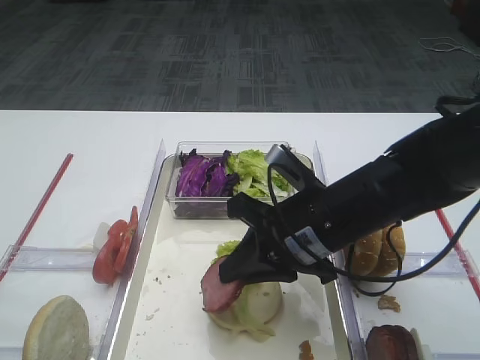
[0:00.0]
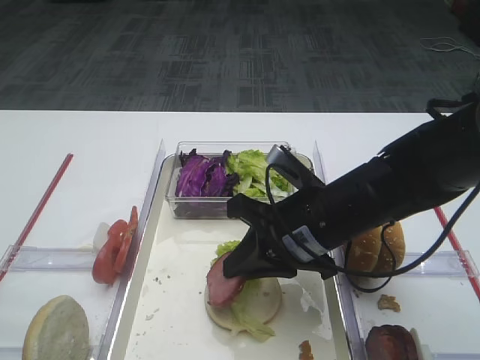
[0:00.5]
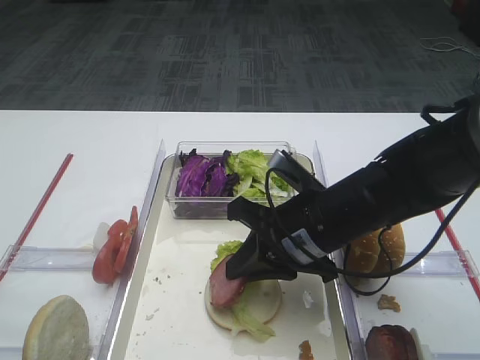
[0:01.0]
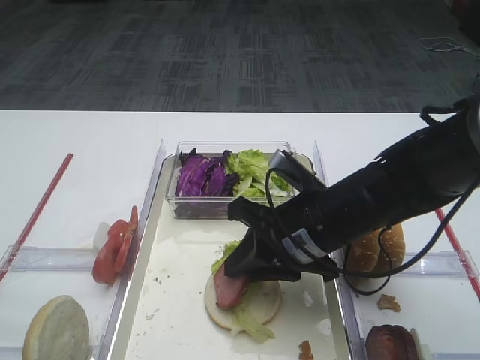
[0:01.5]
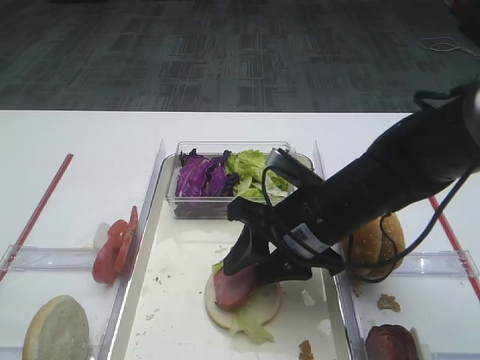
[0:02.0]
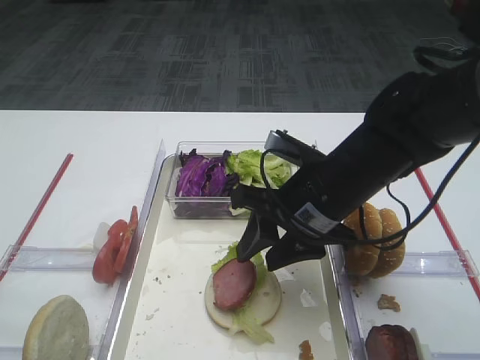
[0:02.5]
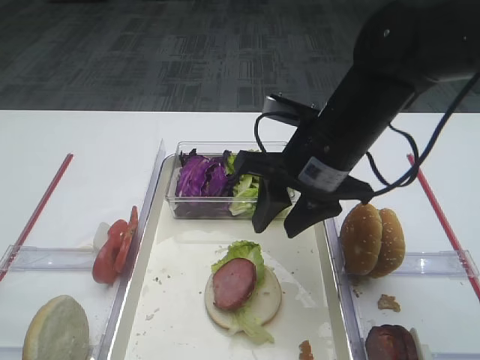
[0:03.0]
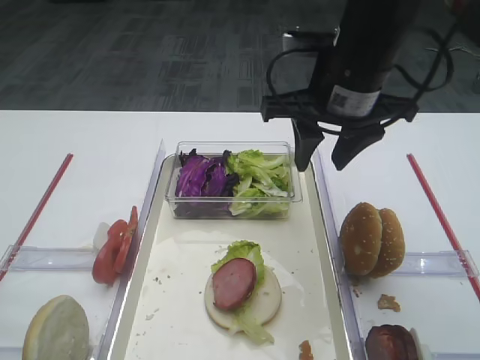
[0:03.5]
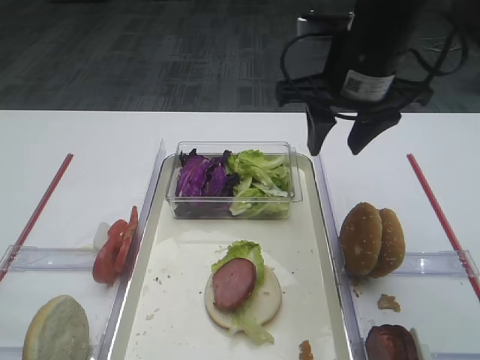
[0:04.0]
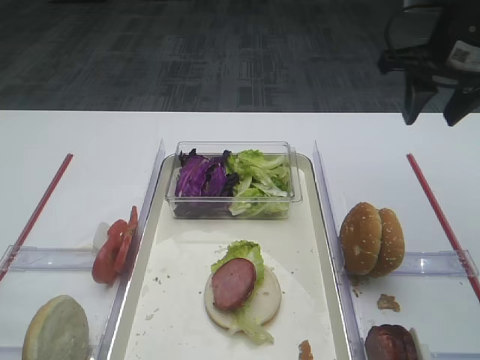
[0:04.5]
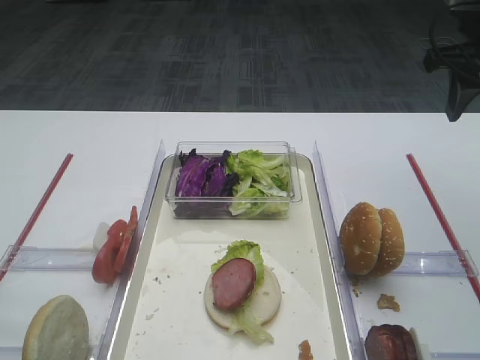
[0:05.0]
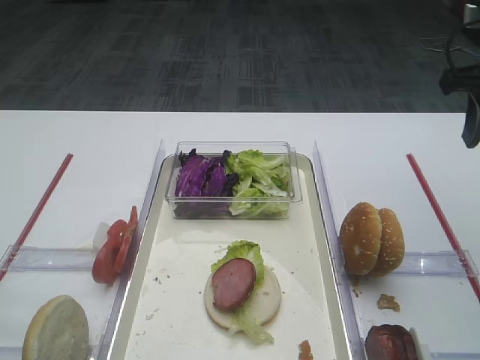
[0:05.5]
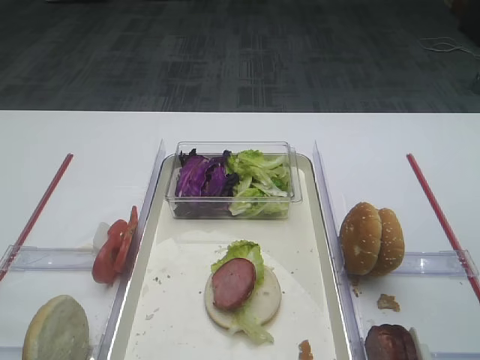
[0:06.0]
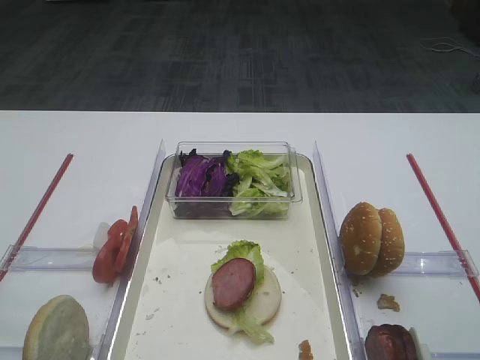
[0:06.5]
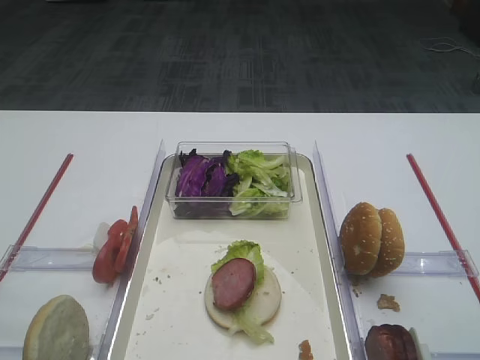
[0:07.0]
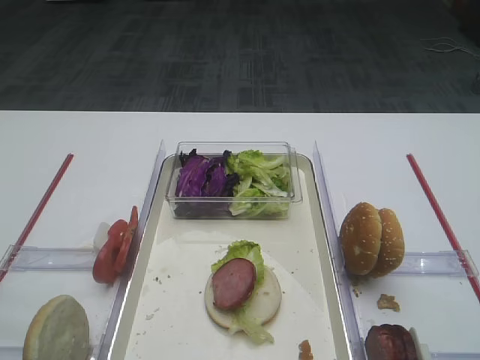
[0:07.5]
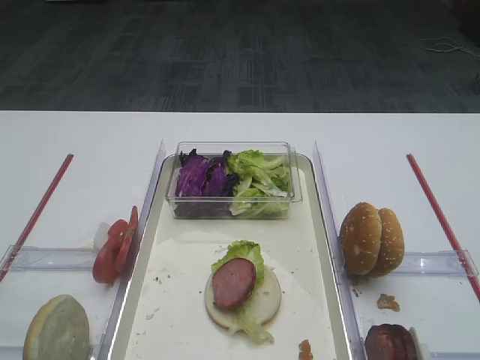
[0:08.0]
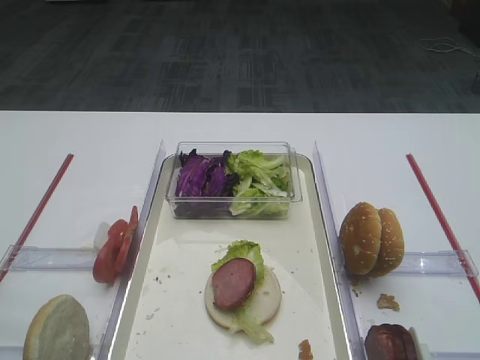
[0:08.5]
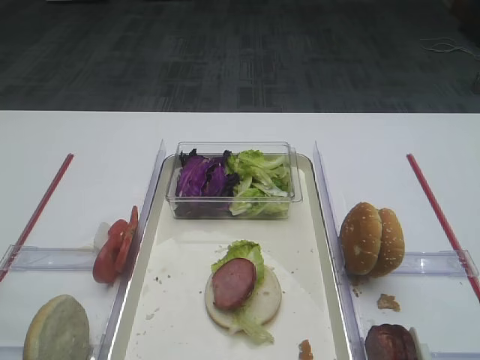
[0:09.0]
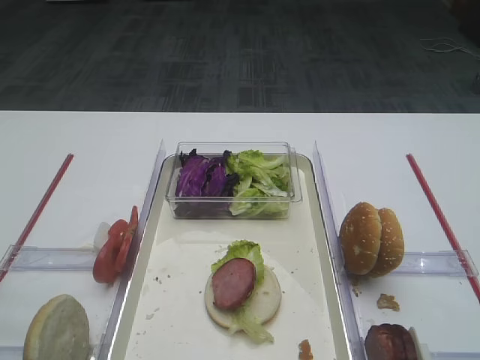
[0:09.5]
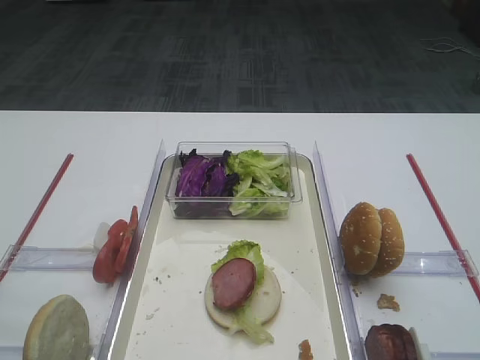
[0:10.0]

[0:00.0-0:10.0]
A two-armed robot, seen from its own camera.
Step, 0:00.0 to 0:02.5: Place the cutlet on the tomato slice with the right gripper.
0:00.0 to 0:02.0: The right gripper opens up.
0:02.0 to 0:04.0: The right gripper is displaced upward and forward by some 15 cm.
0:04.0 to 0:06.0: The right gripper is displaced to the right and backward by approximately 20 cm.
